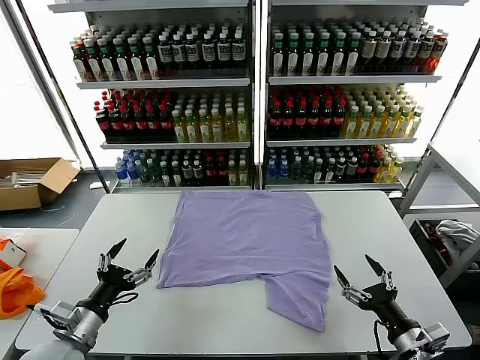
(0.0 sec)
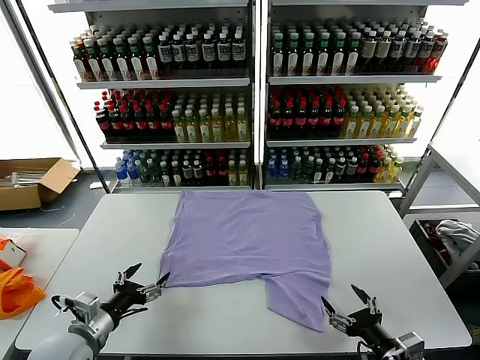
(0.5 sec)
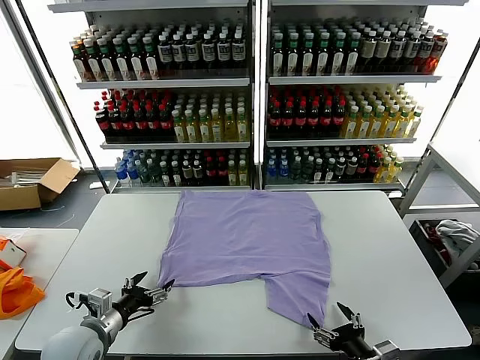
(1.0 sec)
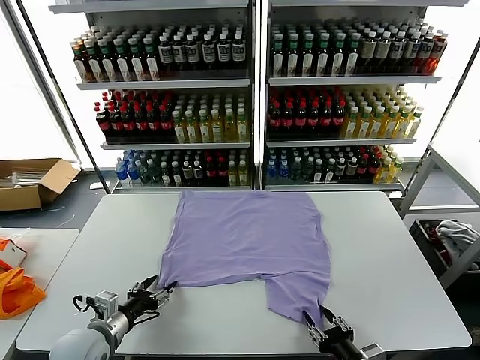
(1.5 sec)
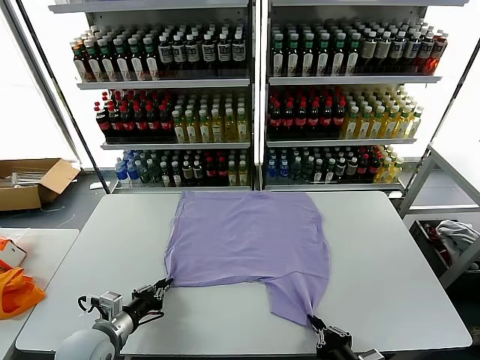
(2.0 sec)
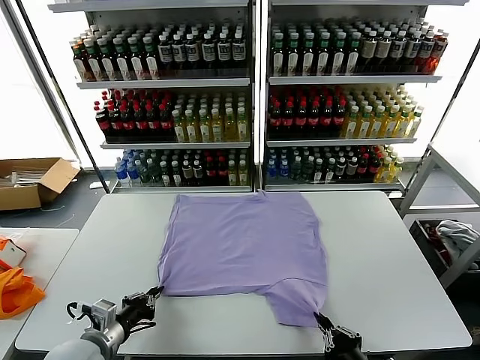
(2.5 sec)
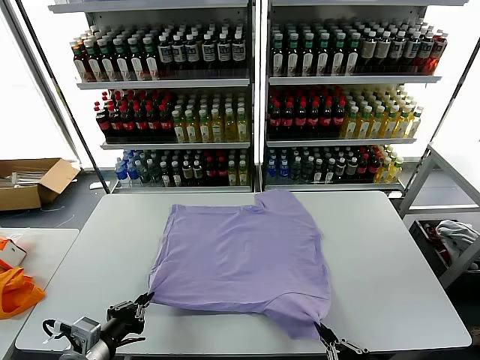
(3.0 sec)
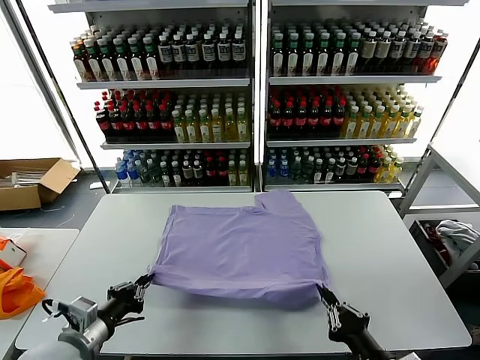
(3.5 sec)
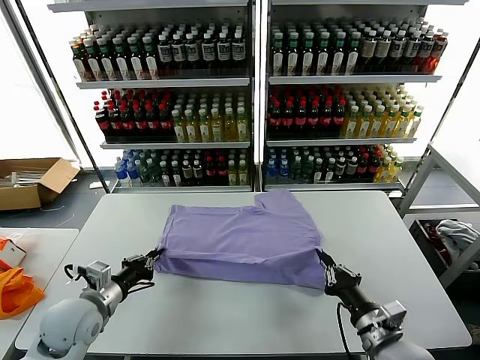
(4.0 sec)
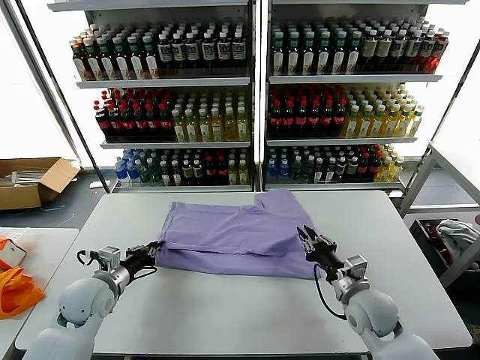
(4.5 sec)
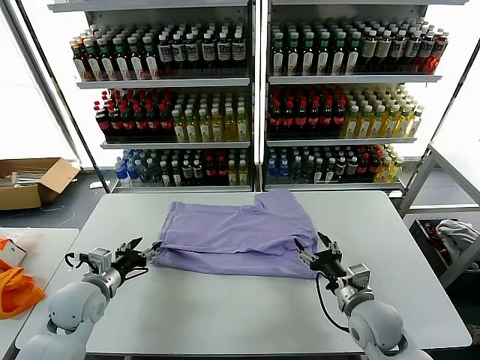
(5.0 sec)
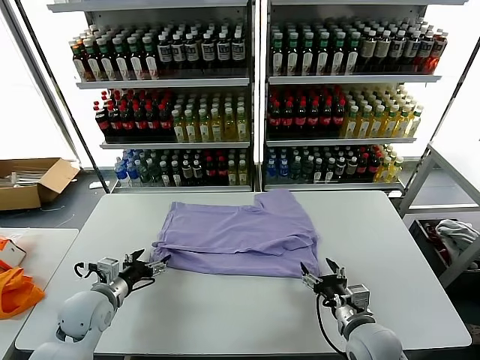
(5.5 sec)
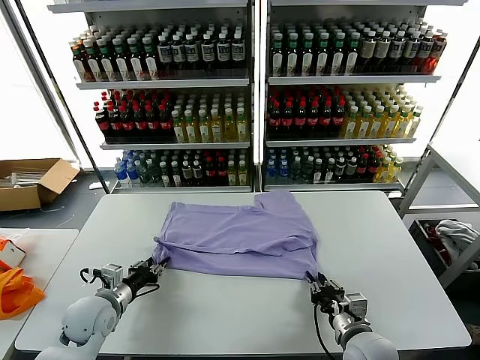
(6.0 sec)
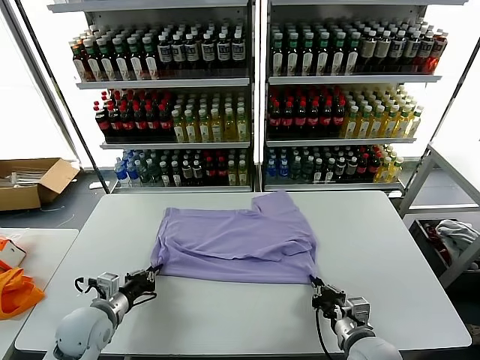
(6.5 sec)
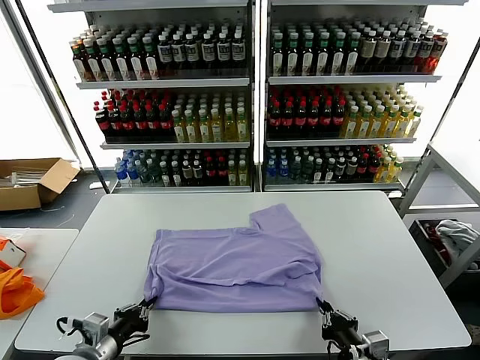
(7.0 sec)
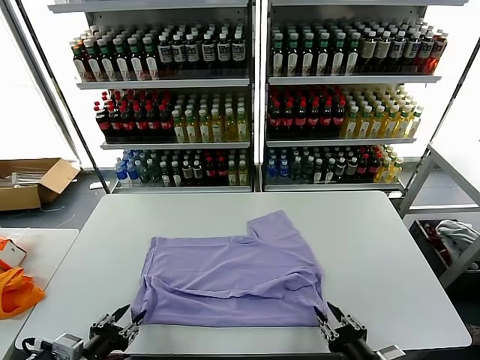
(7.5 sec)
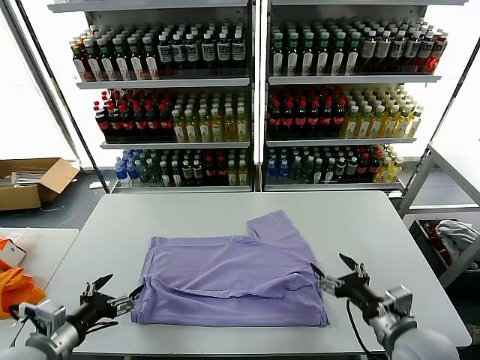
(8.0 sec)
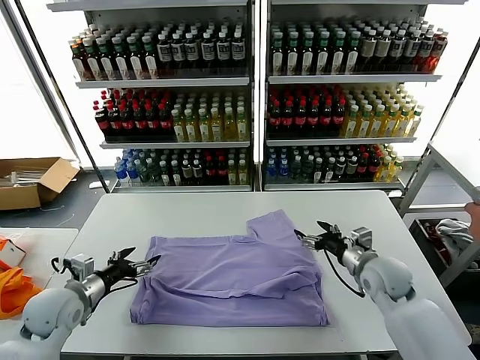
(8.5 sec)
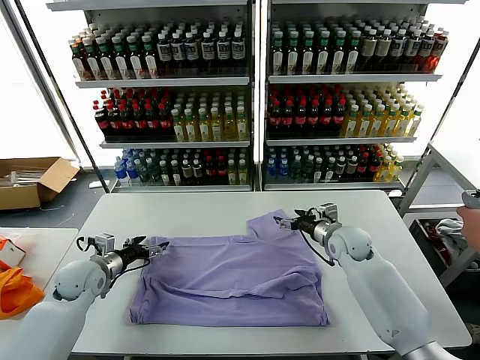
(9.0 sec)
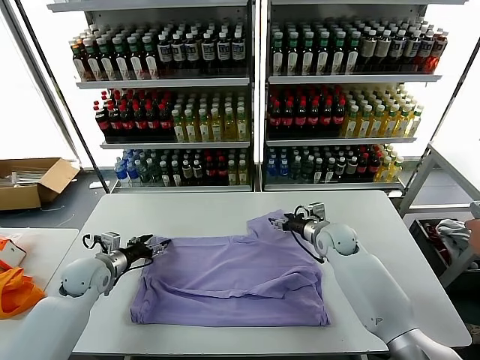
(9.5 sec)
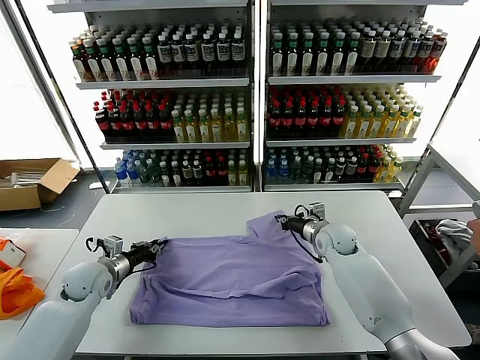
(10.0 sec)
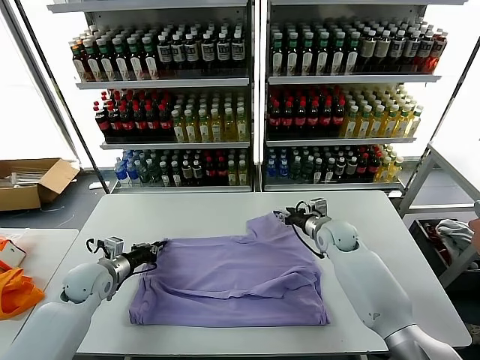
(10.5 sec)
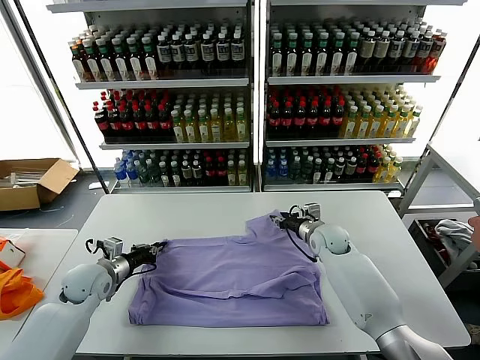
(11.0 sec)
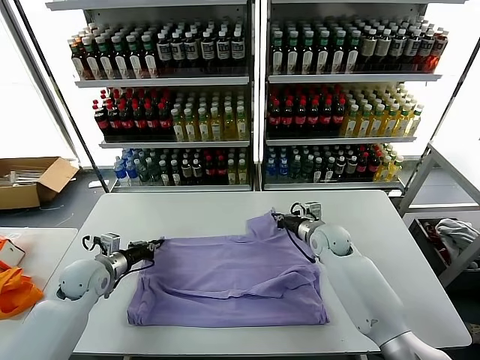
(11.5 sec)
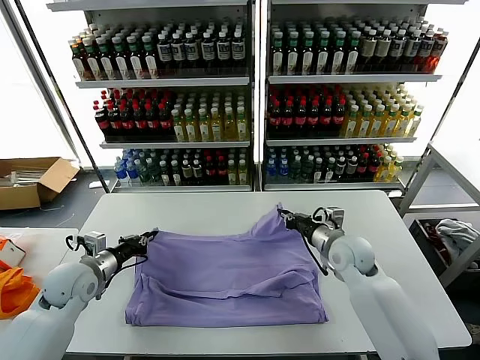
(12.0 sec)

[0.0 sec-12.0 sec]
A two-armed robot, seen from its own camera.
Task of the whole recording: fold and organize the clothes.
Step, 0.0 sec to 2.0 sec: use both grippers simultaneously to clamp the lower edge of the clothing fabric.
Step, 2.5 sec to 4.5 sec: use both grippers to drag the lower edge of the fabric forward and fold it over the upper edge.
Step, 5.0 sec to 7.5 sec: Drag the clothes downward with both gripper.
Step, 8.0 sec to 11.5 sec: use both grippers simultaneously to clamp the upper edge of the clothing fabric.
2.0 sec to 4.0 sec: The right gripper goes roughly 10 cm forward; the left gripper goes roughly 5 cm upward.
4.0 sec to 6.0 sec: The right gripper moves approximately 10 cm forward and comes back, and opens, then closes again; the left gripper moves downward, some 5 cm, and opens.
6.0 sec to 8.0 sec: The right gripper heads upward and to the right, covering about 10 cm, travels backward and back again, approximately 10 cm each way, and opens up. The left gripper shifts roughly 15 cm backward and upward, and opens.
8.0 sec to 10.0 sec: The right gripper shifts some 30 cm forward, and closes its fingers. Meanwhile the left gripper shifts roughly 20 cm forward and downward, and closes up.
10.0 sec to 12.0 sec: The left gripper shifts some 5 cm upward, while the right gripper goes roughly 10 cm backward, and opens and closes again.

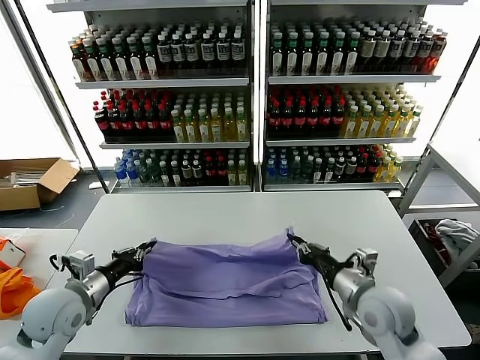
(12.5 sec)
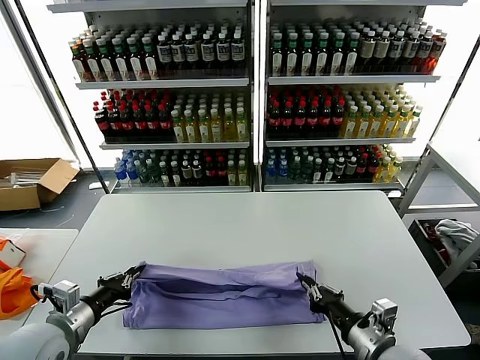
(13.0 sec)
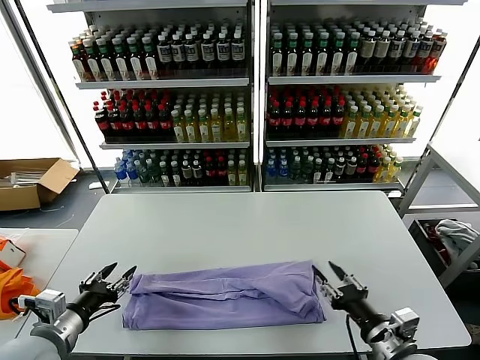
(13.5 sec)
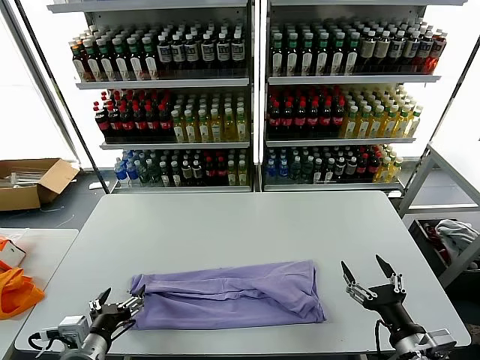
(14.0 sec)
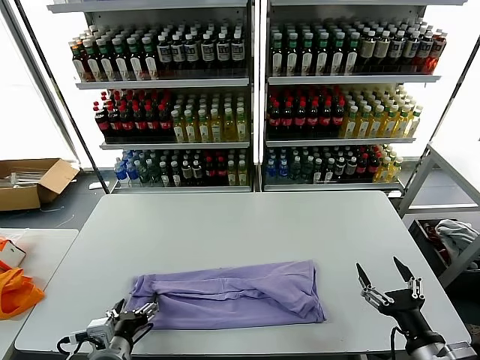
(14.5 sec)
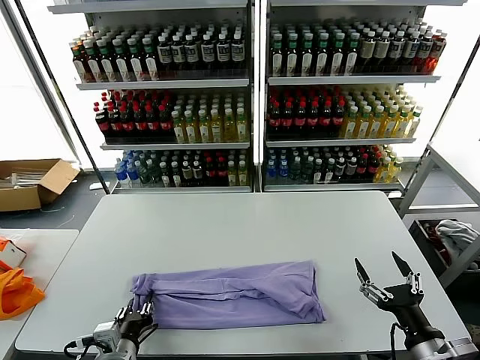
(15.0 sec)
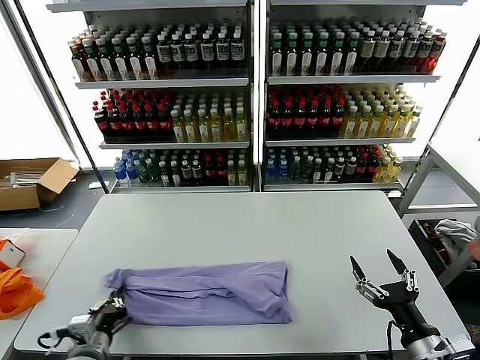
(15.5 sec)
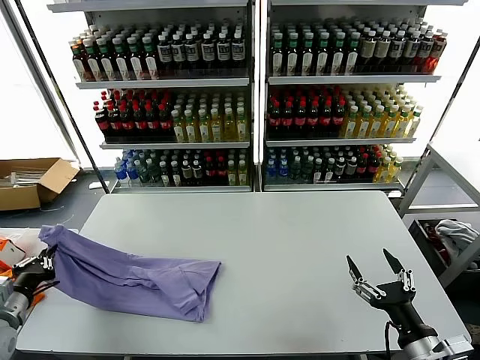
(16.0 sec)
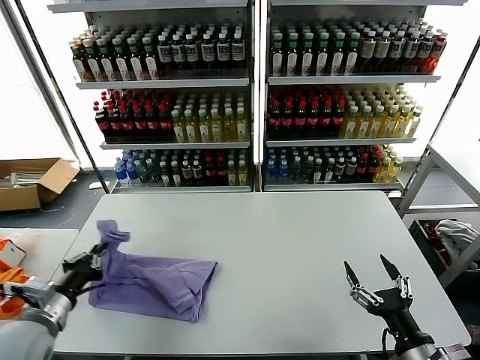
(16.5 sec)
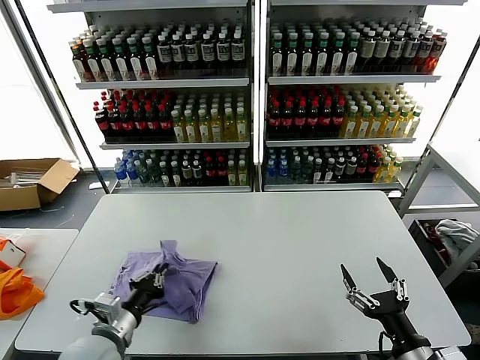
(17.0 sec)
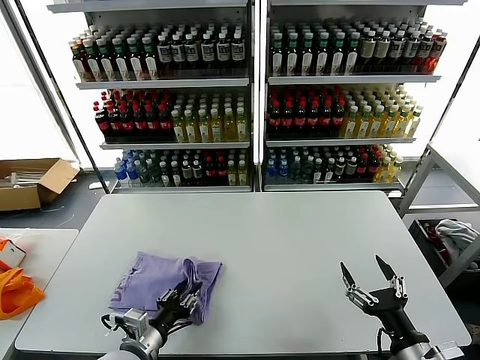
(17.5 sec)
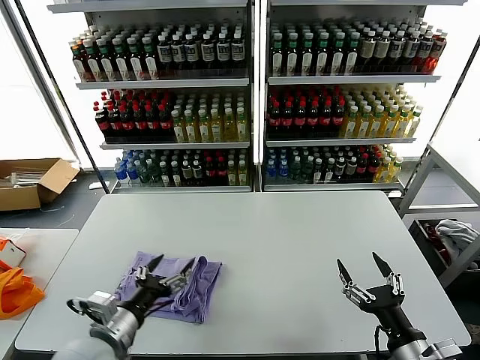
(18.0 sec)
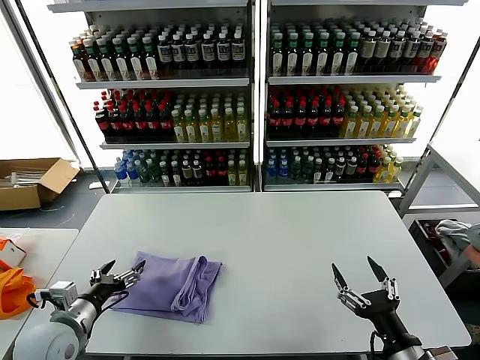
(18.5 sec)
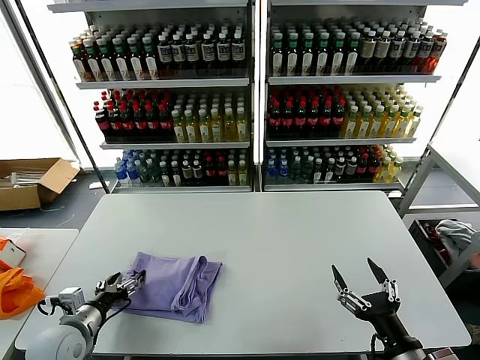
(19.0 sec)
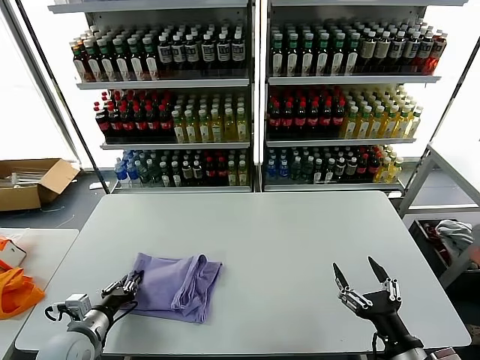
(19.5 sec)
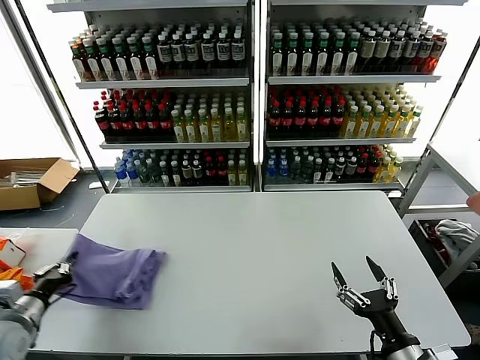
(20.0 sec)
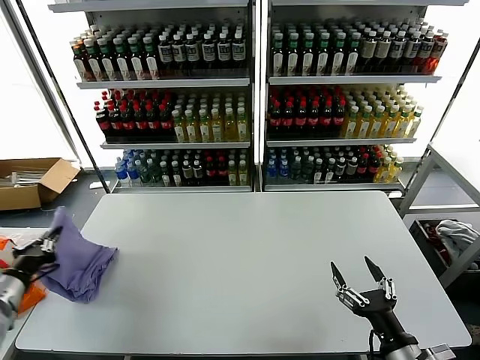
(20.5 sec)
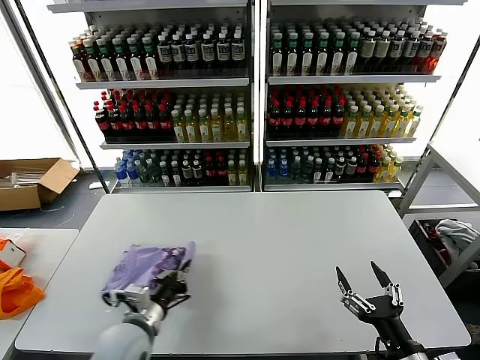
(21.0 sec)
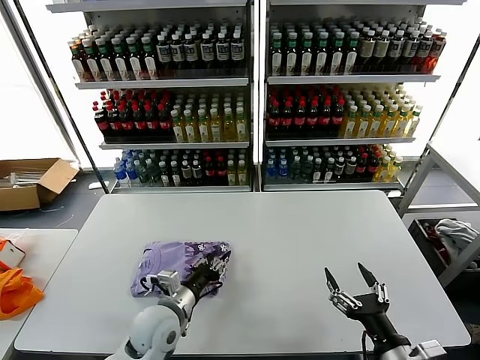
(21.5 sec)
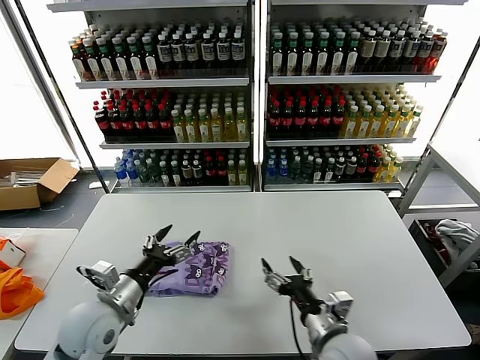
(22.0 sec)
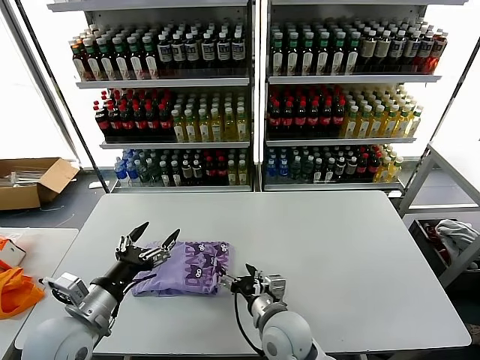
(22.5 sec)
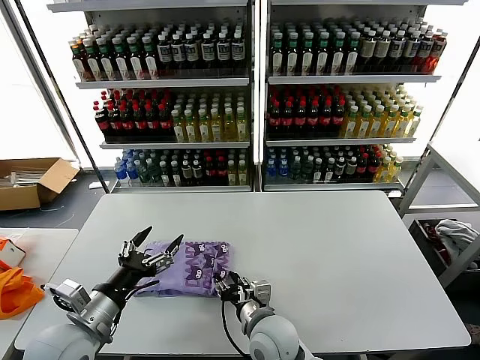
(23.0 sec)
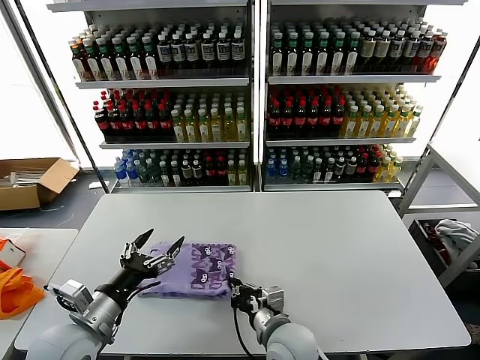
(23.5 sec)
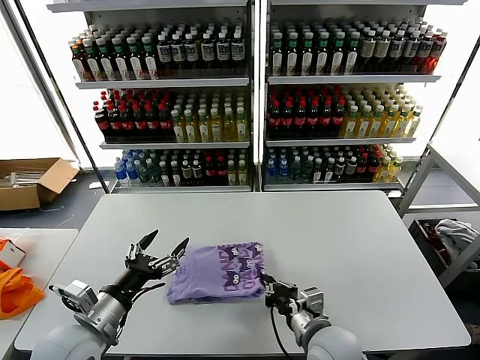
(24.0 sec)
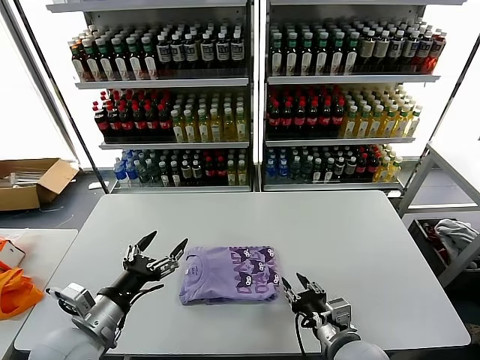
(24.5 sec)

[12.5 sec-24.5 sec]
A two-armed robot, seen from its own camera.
Task of the whole recording: fold and organize the clothes.
Step, 13.5 sec to 15.0 sec: use the left gripper to clamp the left edge of the fabric.
Step, 15.5 sec to 17.5 sec: use the left gripper to drag the left edge of the fabric to the left and folds it over the right edge.
Step, 18.0 sec to 21.5 sec: Flip the folded clothes over with left gripper.
12.5 sec to 14.5 sec: The left gripper shifts approximately 15 cm backward, to the right and downward, and opens its fingers, while the right gripper shifts about 15 cm backward and to the right, and opens its fingers.
14.5 sec to 16.5 sec: The left gripper goes about 15 cm to the left and upward, and closes up.
16.5 sec to 18.5 sec: The left gripper moves about 15 cm to the right and comes back, and opens.
18.5 sec to 20.5 sec: The left gripper shifts approximately 15 cm to the left and upward, and closes up.
20.5 sec to 22.5 sec: The left gripper moves to the right, approximately 15 cm, and opens its fingers; the right gripper moves to the left and forward, approximately 25 cm.
22.5 sec to 24.5 sec: The right gripper moves to the right and backward, approximately 15 cm, and closes.

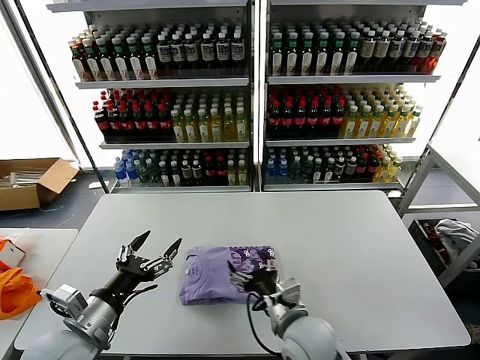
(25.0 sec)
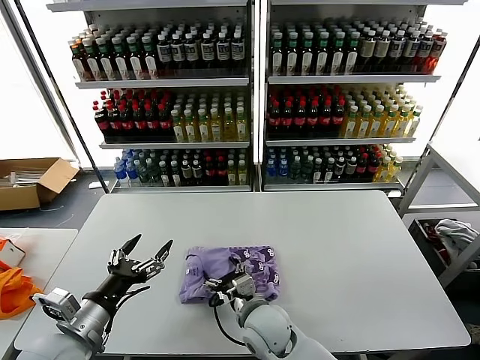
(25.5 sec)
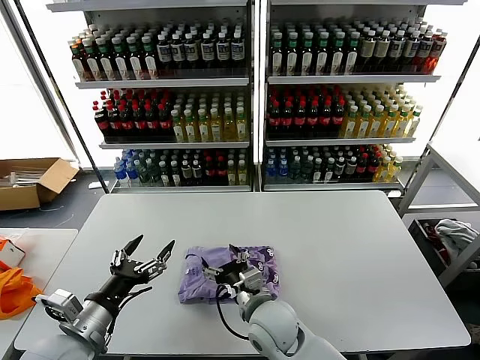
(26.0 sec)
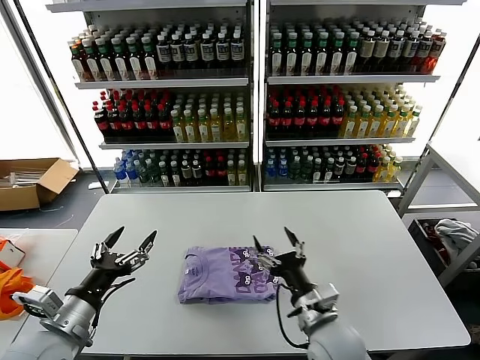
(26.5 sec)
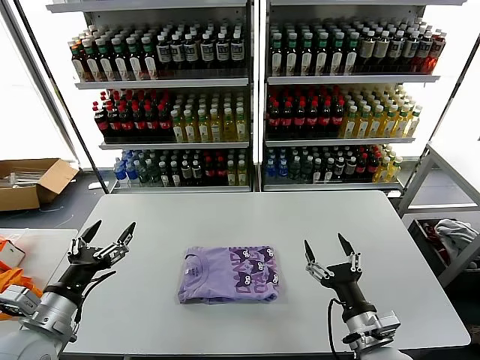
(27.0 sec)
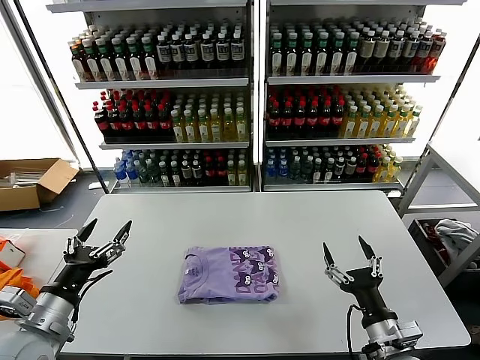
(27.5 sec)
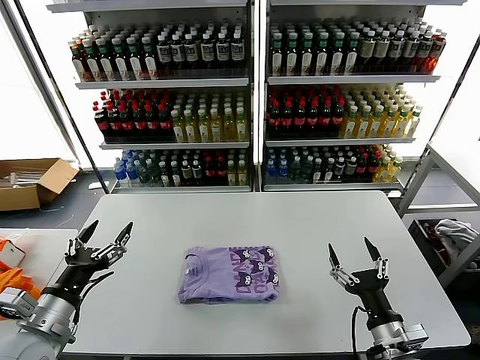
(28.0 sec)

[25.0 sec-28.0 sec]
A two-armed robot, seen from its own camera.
Task of the whole recording: fold and organize the clothes.
25.0 sec to 26.5 sec: The right gripper goes to the left and returns, roughly 10 cm each way.
26.5 sec to 28.0 sec: The right gripper heads to the right and backward, covering some 15 cm.
